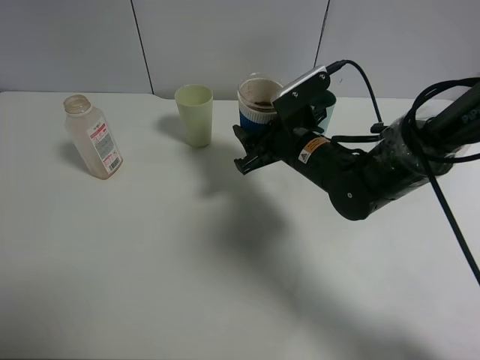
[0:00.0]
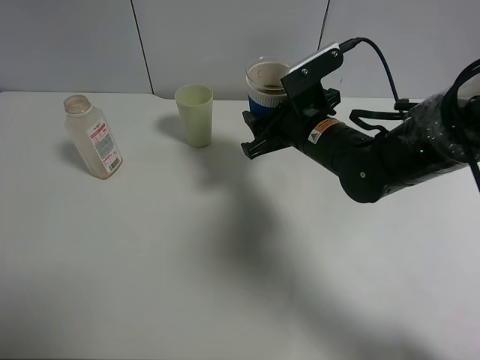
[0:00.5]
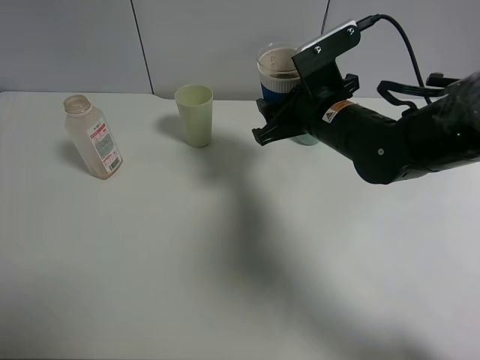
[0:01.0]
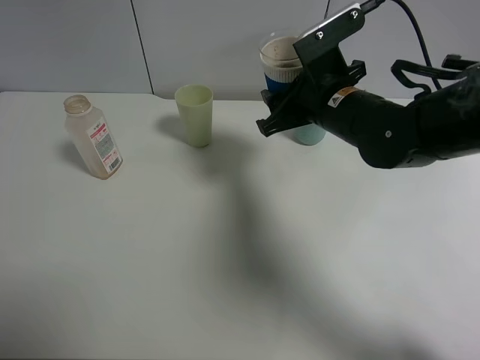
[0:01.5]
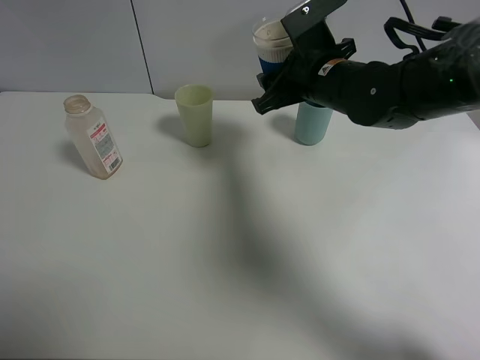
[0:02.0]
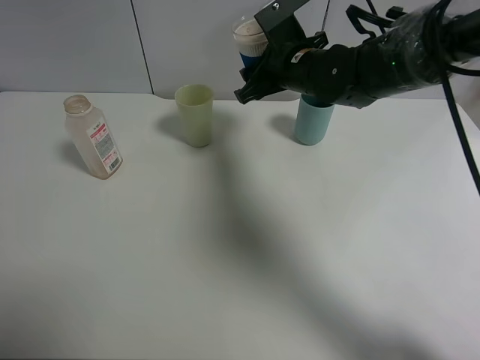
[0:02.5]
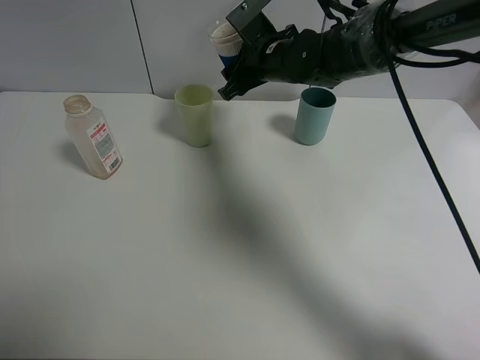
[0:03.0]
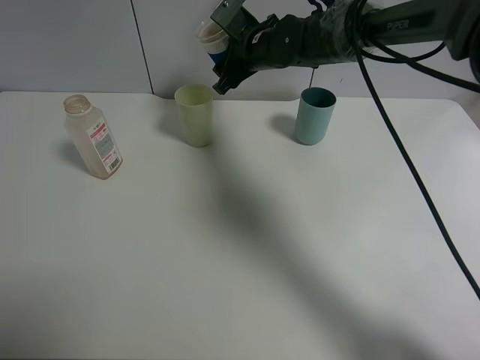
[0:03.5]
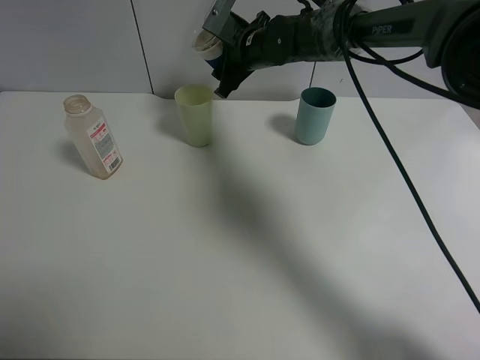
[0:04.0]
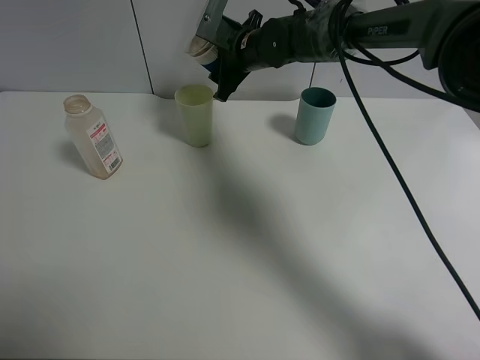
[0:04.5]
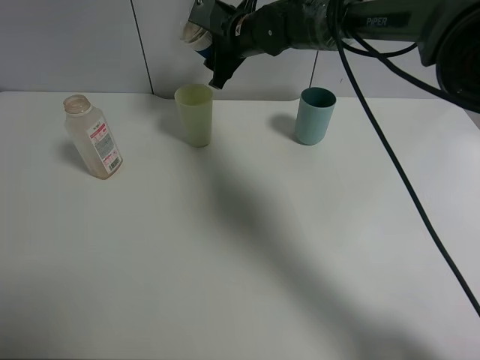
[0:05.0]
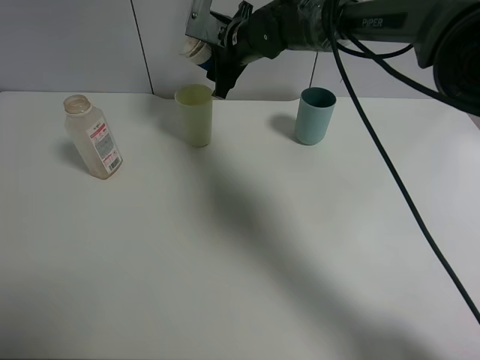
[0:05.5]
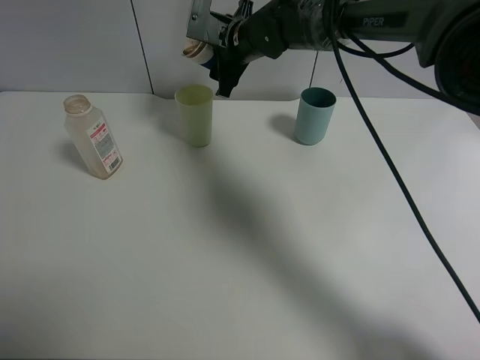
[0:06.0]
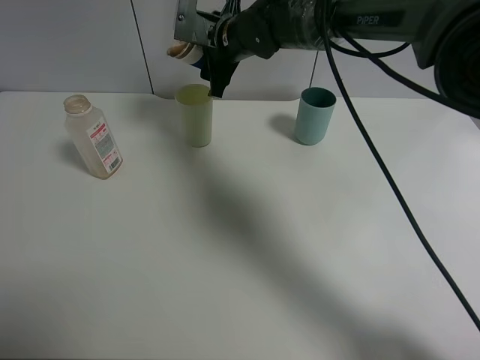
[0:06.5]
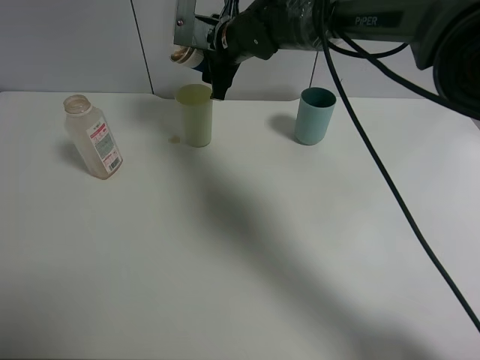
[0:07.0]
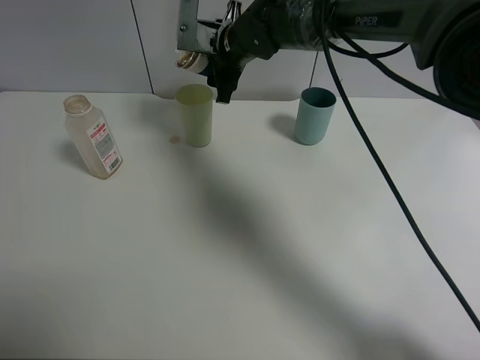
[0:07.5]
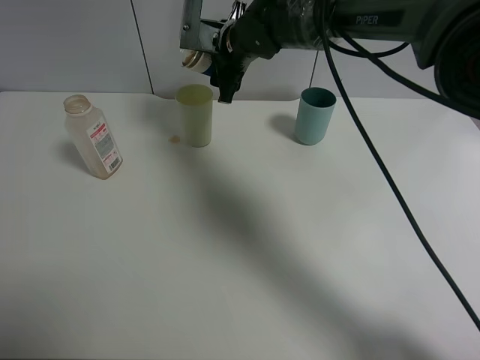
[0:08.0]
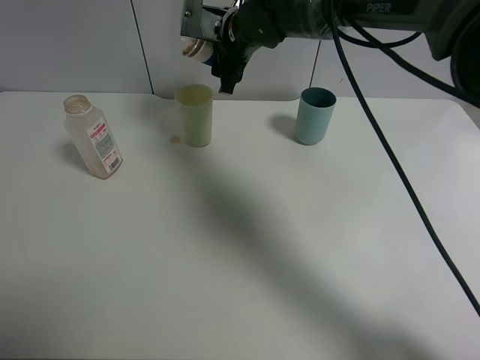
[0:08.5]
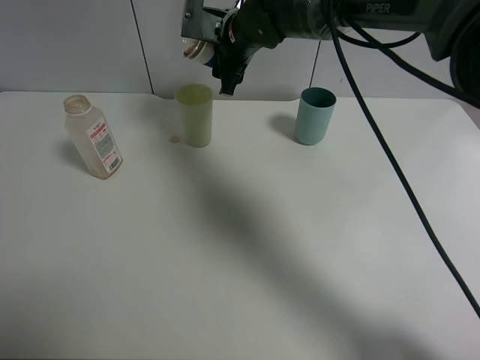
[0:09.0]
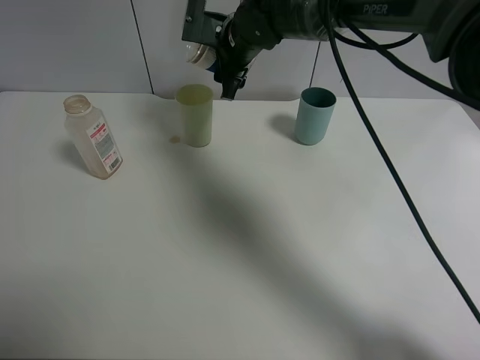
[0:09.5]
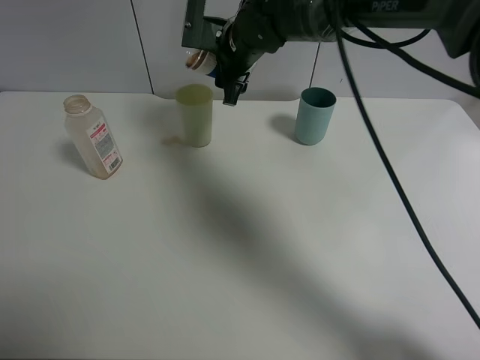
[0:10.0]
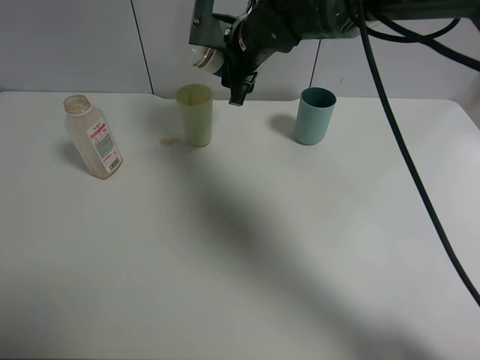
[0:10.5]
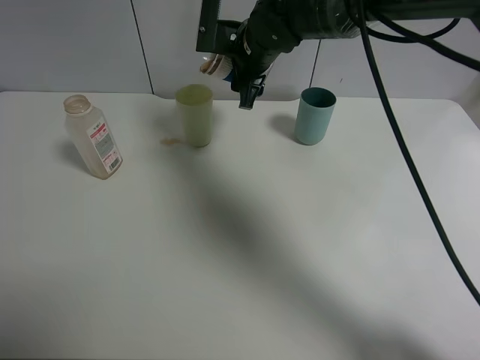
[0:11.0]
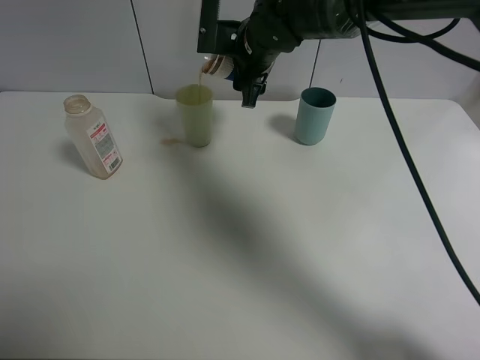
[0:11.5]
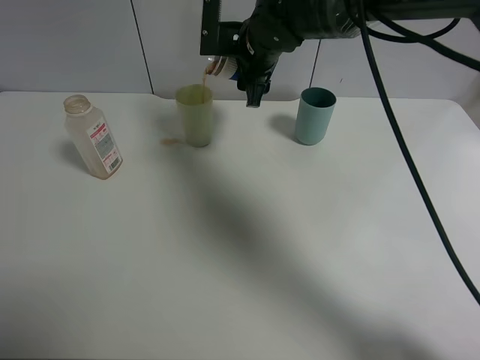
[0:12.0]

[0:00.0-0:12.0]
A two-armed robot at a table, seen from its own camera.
Task of the whole recording: use a clamp to hold the bottle of the drink, pour the beverage into a random cup, then clamp the cup containing the drink and pour the drink into another random cup.
0:00.0 to 0:02.0: The right gripper moves upward, approximately 10 cm.
0:02.0 to 0:04.0: The right gripper heads forward and to the left, covering approximately 15 cm.
0:04.0 to 0:06.0: There are only small adjustments of the grippers.
0:06.0 to 0:12.0: The grippers stay close to where they were, moving slightly.

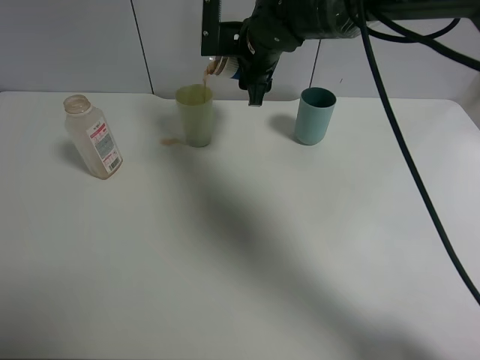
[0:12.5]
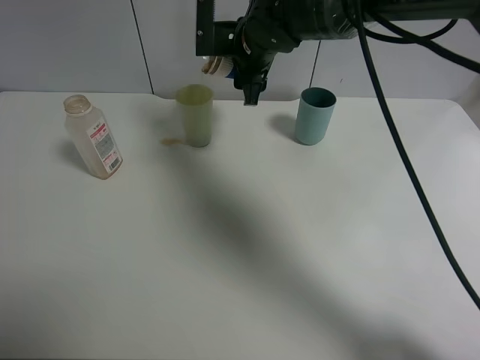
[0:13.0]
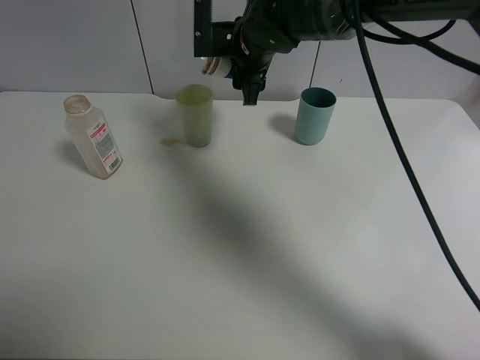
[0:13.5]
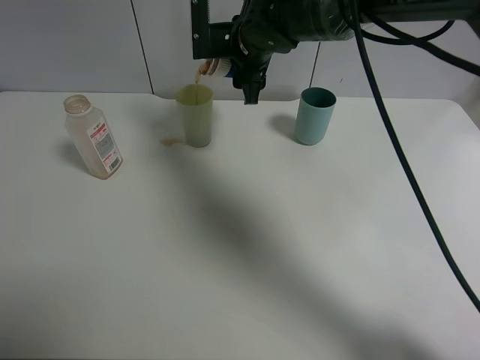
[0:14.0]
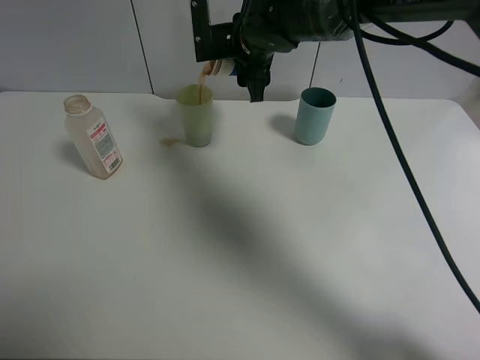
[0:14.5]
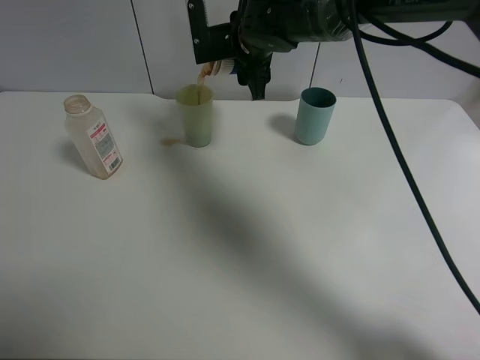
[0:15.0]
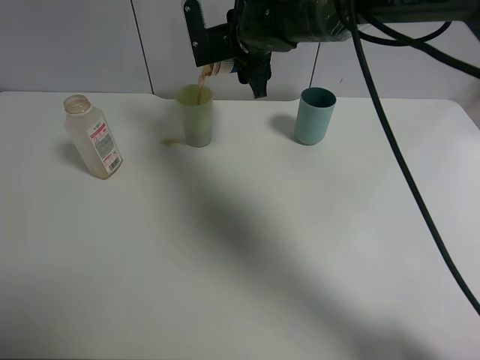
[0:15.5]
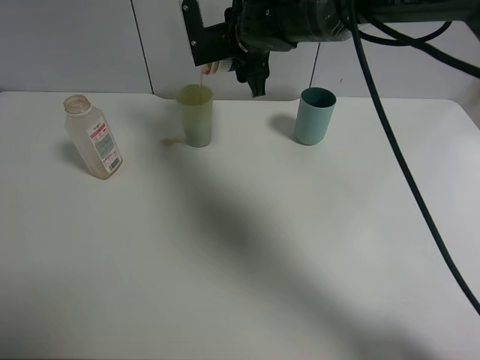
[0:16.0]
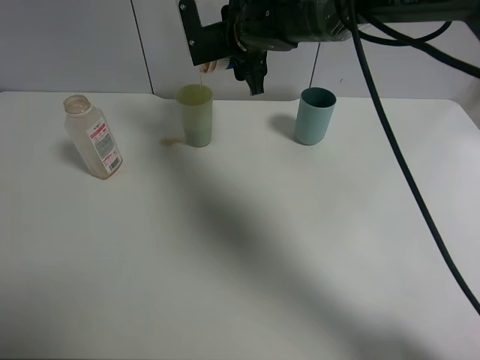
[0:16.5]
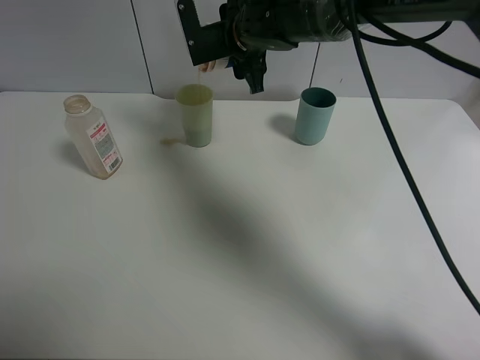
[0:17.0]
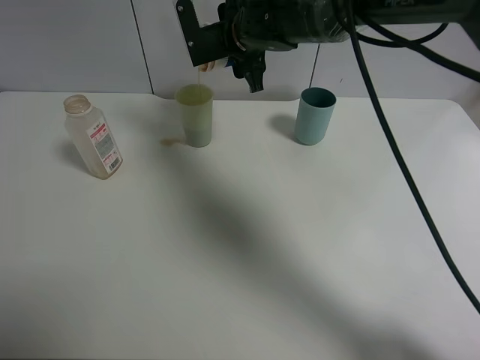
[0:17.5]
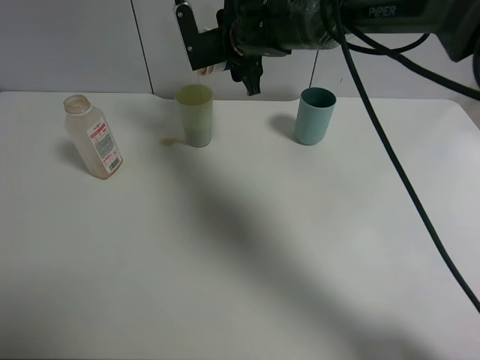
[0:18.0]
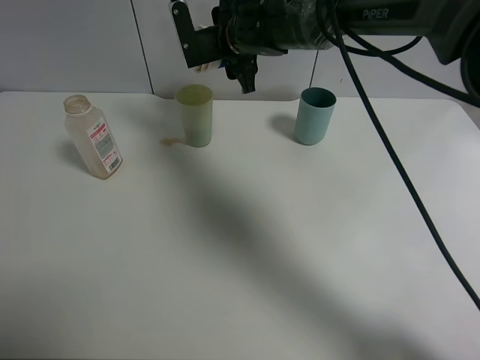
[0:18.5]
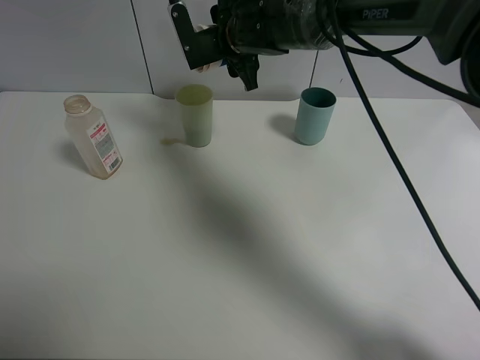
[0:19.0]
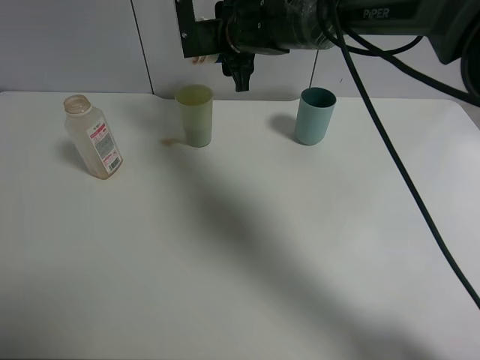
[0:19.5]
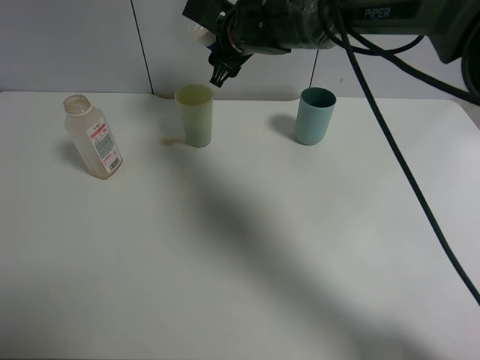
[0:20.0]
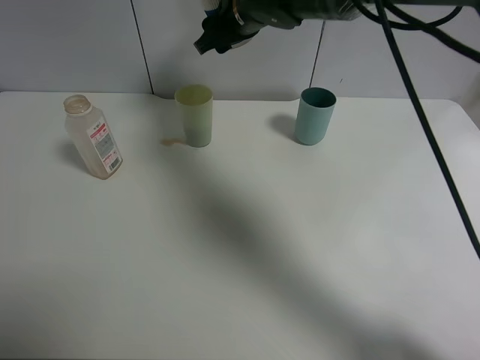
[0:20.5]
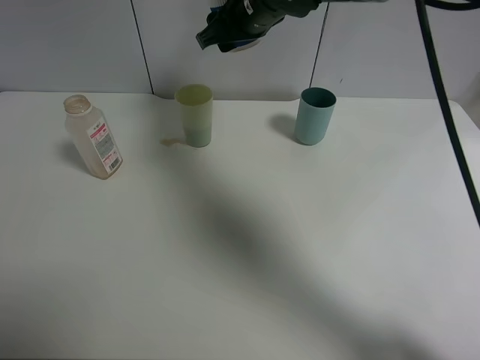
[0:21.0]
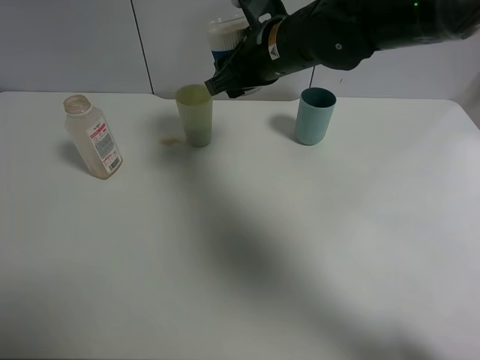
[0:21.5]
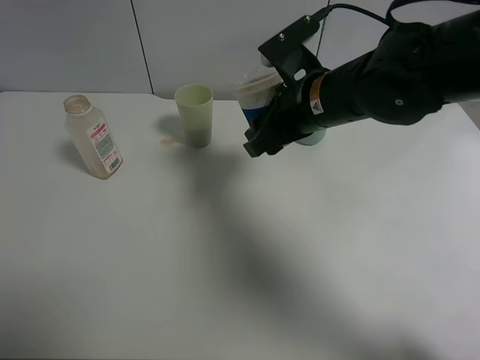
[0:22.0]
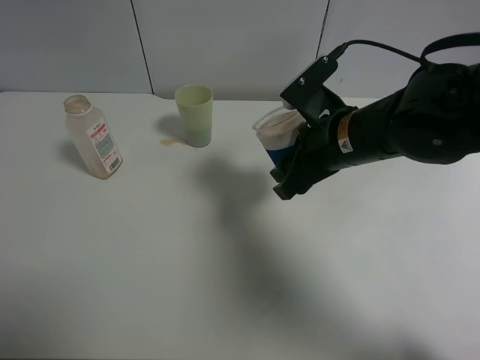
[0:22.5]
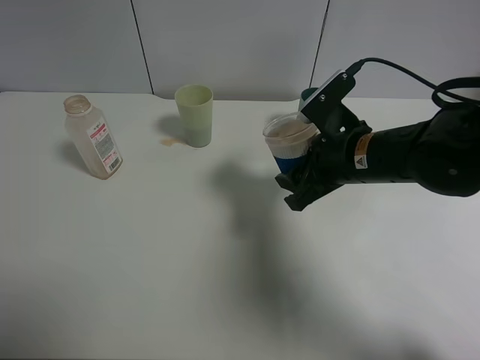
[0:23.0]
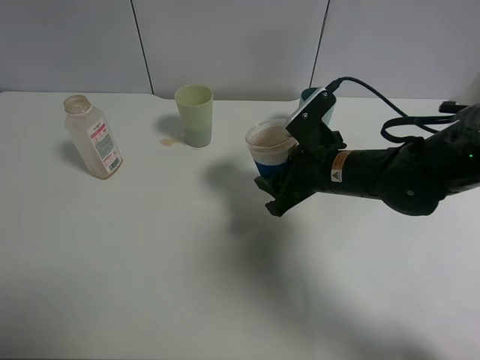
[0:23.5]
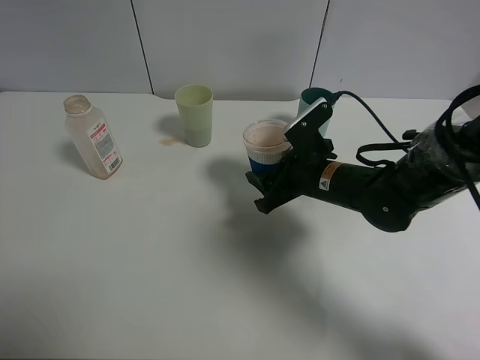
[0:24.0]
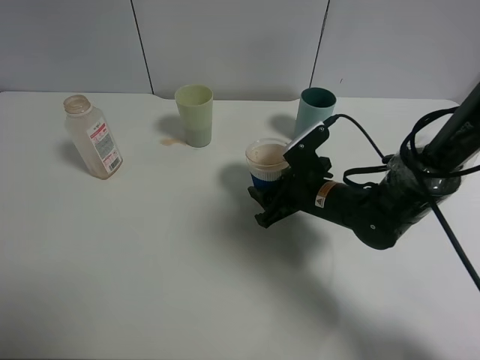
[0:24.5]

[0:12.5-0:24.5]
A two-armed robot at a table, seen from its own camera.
Task of the whole recording: use a clamp to hold the bottle of the drink, pour the beverage into a random cup, then clamp the cup containing the drink and pour the drink into another random cup.
Step, 0:12.5 to 0:20.0: Pour the drink into the green plastic cup with right gripper.
0:12.5 to 0:16.5: The grippers make only small movements.
0:16.5 to 0:18.5: The grippers stay close to where they were, moving slightly.
0:20.5 to 0:22.5: The right gripper travels backward and to the right by about 20 cm.
0:22.5 to 0:24.5: The right gripper shifts some 15 cm downward.

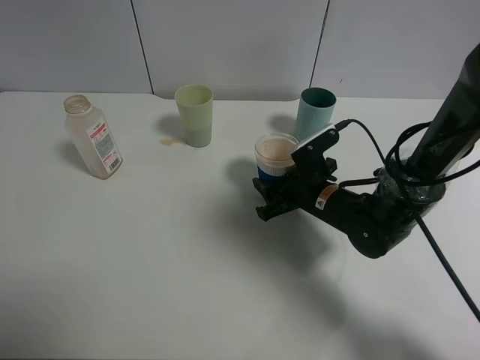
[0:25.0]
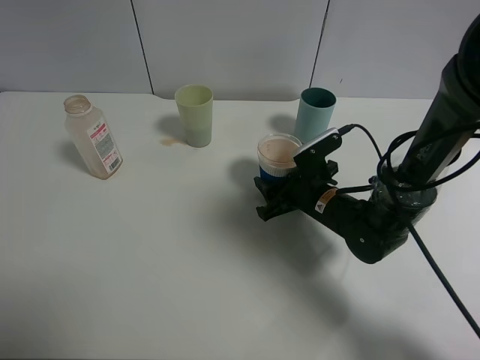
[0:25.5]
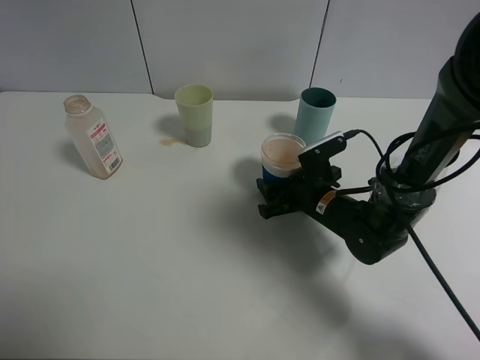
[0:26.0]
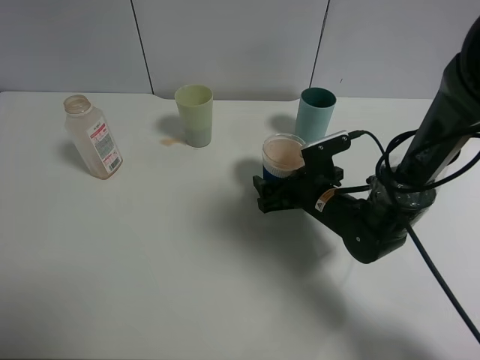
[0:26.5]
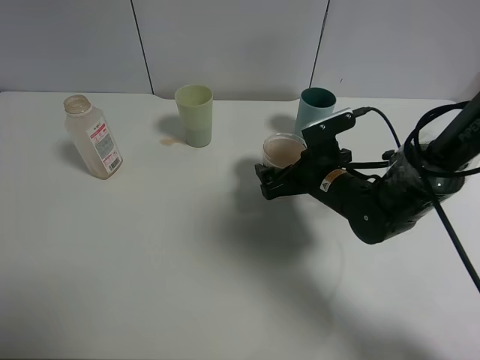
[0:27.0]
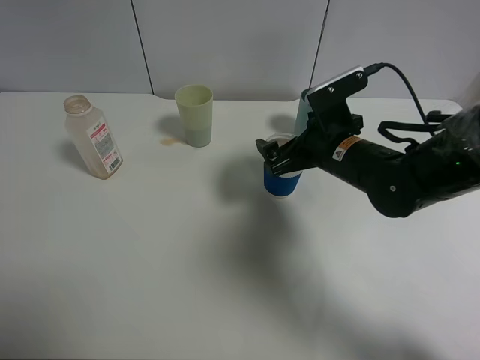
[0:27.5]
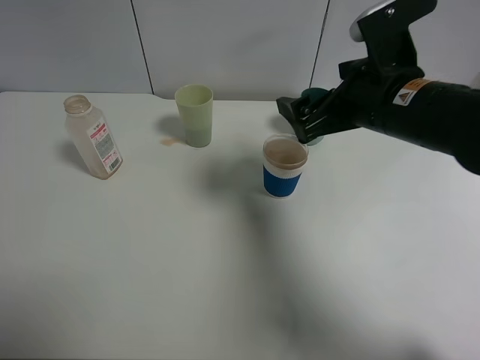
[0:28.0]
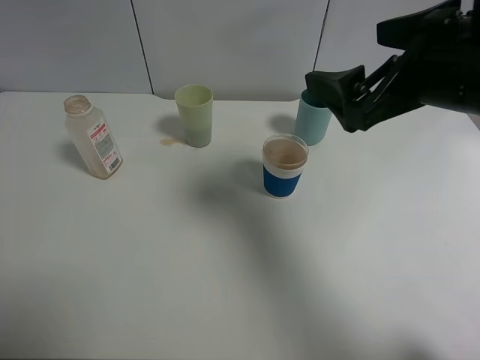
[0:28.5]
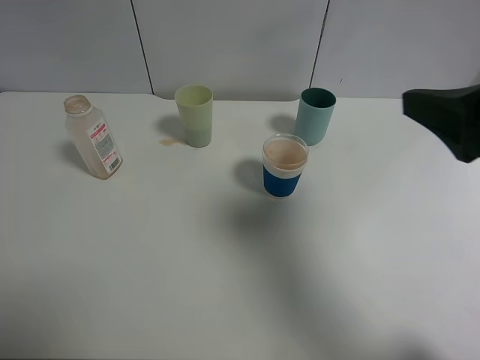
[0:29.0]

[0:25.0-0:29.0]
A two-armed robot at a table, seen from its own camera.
Task of the whole recording: use a clamp to hold the bottle of the drink, pour the beverage into a random cup, then clamp the cup containing the drink and pour the drink into another random cup.
Step, 0:25.0 to 0:27.5: Place the paper cup on the table with right gripper.
0:25.0 to 0:27.0: The right gripper opens its fingers.
0:27.0 to 0:29.0: The right gripper moves upward and backward, some 30 cm.
